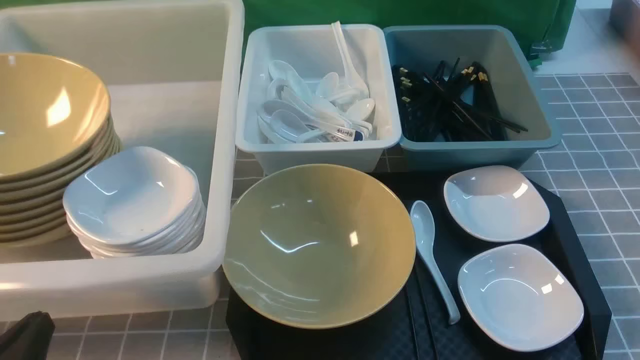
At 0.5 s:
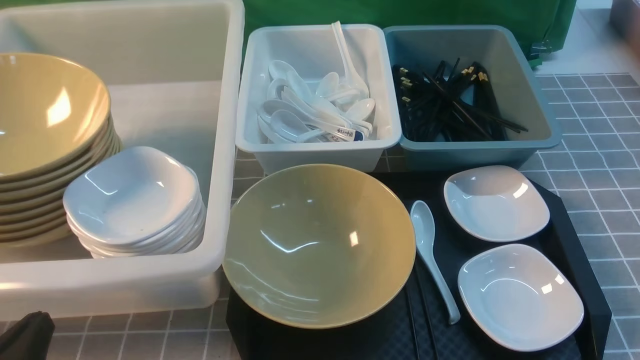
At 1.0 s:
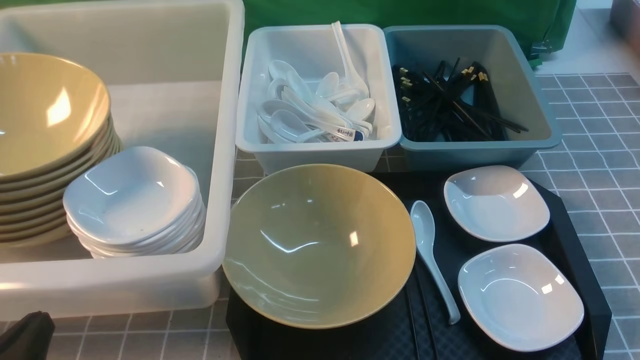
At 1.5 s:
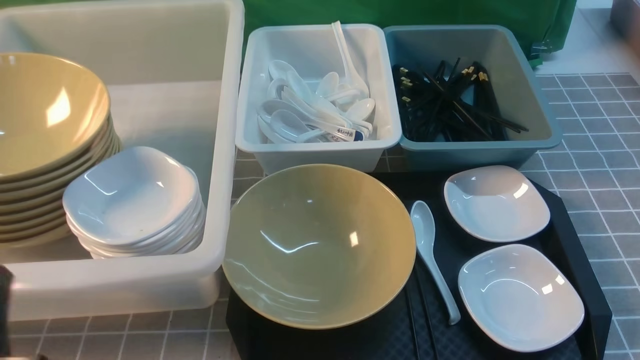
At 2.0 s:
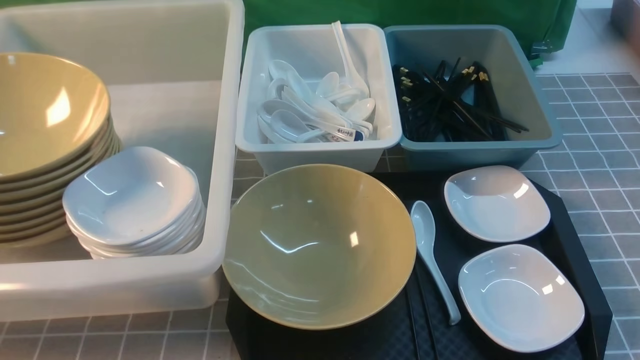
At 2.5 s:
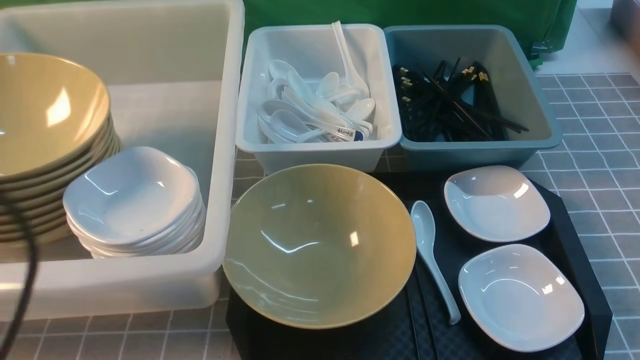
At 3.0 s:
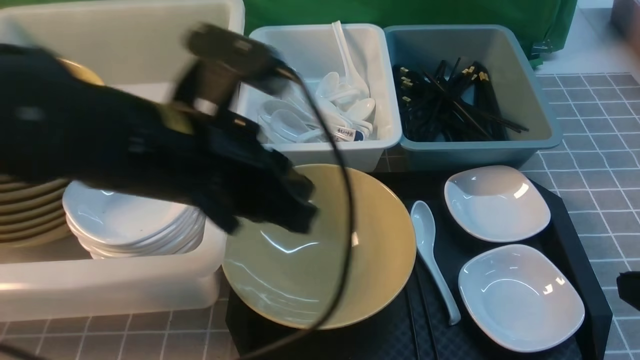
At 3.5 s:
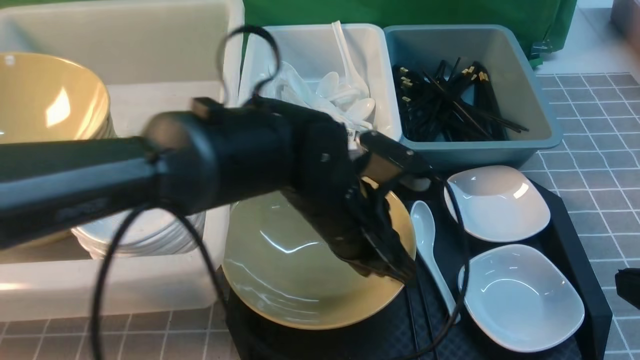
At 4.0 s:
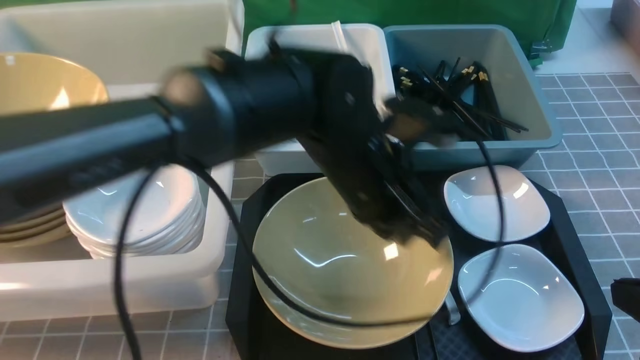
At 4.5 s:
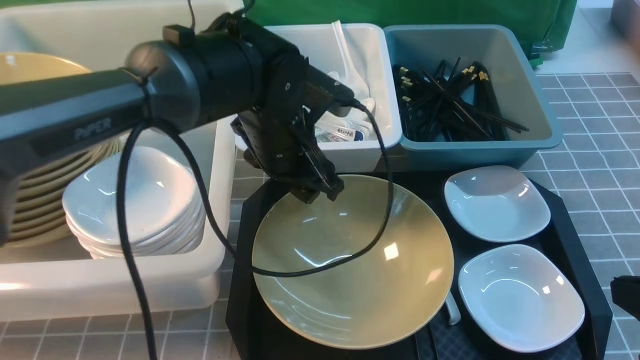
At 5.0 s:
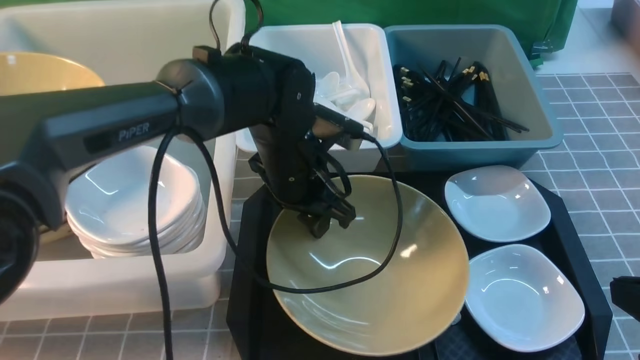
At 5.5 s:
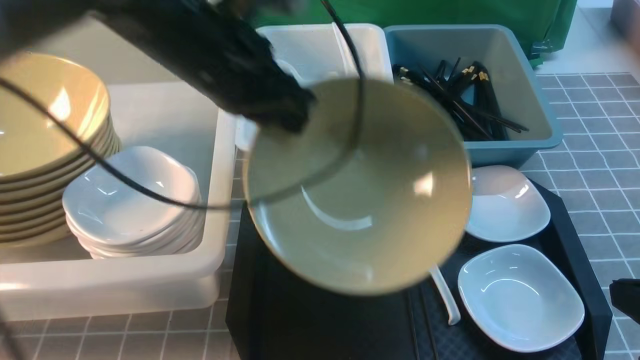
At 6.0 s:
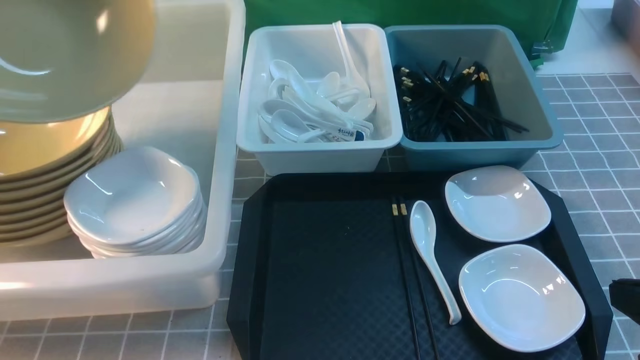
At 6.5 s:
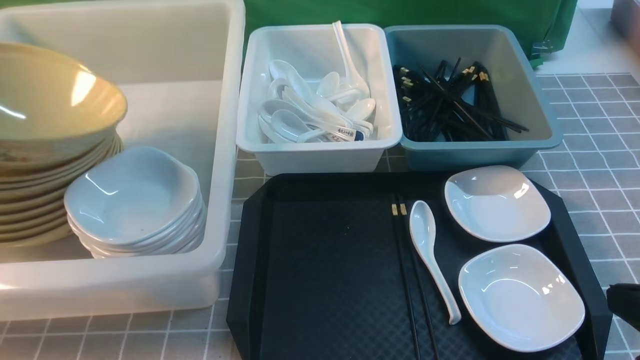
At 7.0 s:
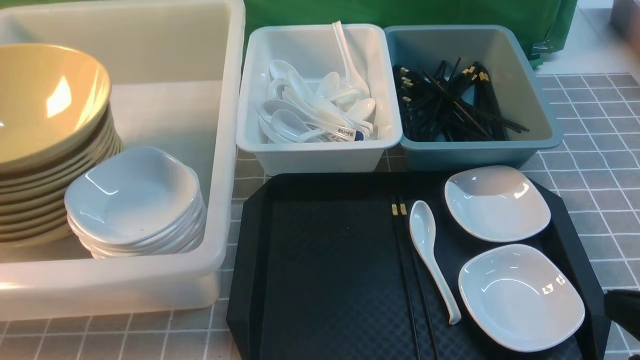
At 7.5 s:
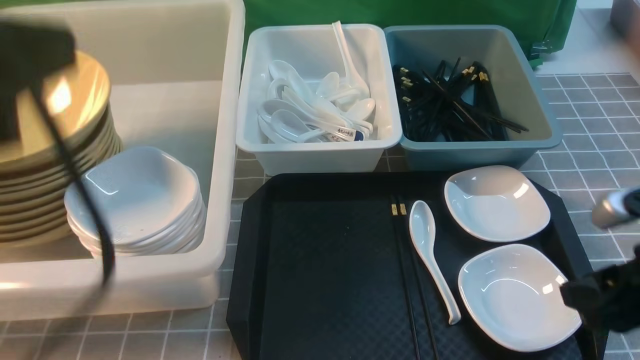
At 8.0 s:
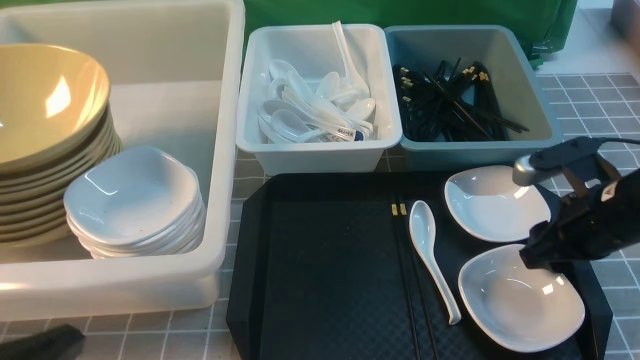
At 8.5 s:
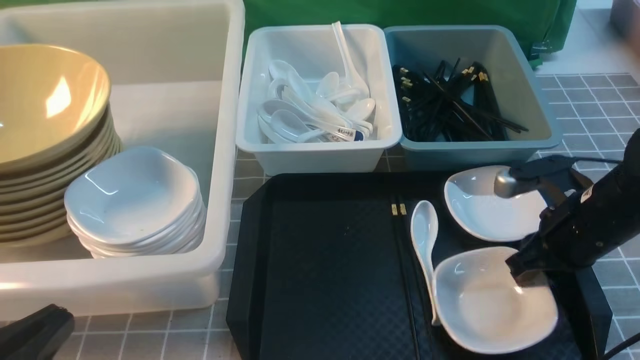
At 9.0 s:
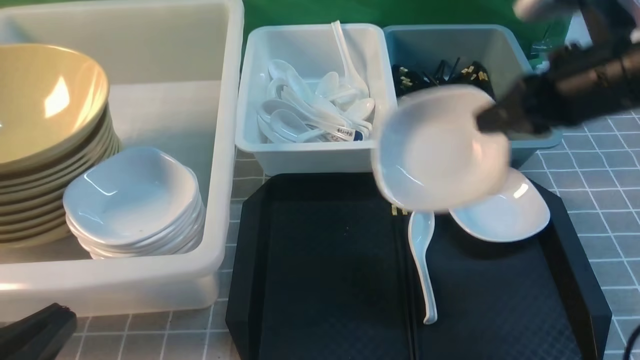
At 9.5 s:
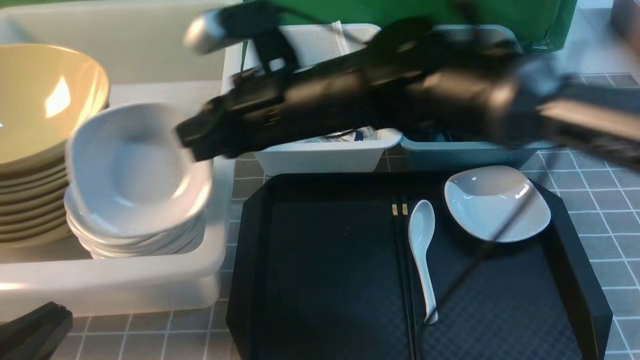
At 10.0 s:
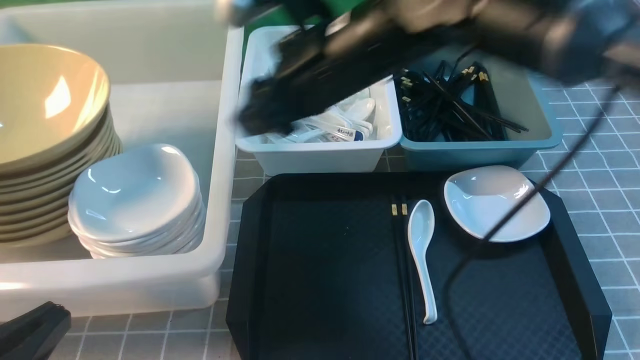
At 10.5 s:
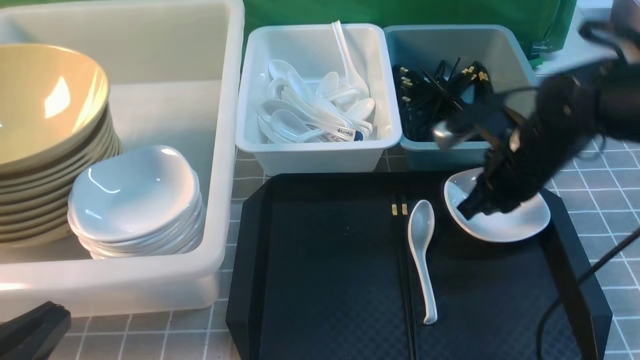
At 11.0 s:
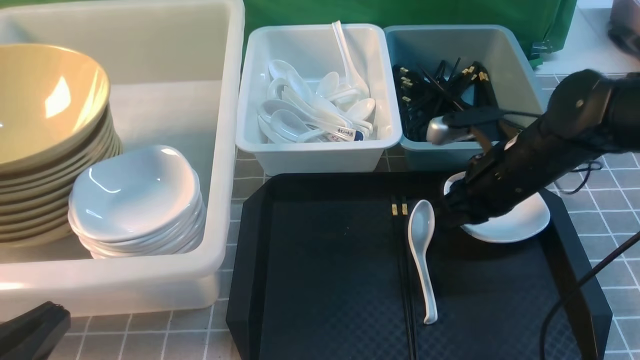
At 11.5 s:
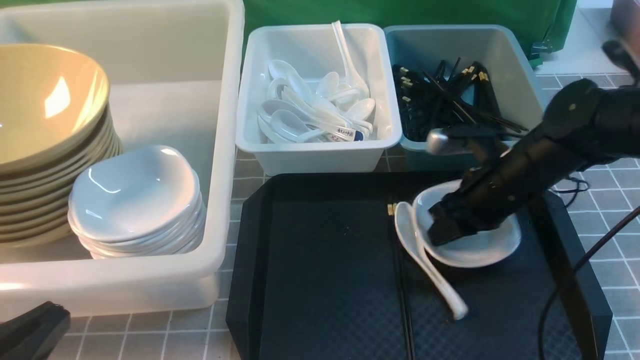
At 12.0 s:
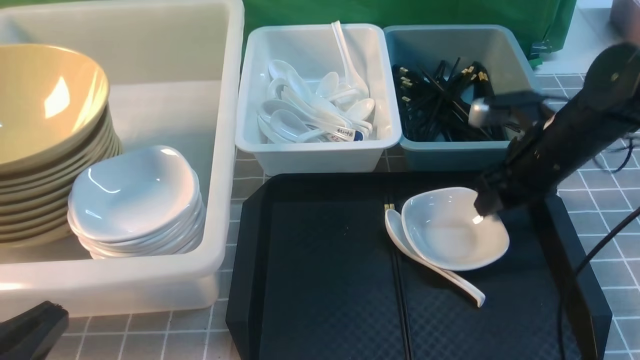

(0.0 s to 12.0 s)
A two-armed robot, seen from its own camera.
Task of the whole recording: on grey table put chopsticks spoon bowls plates into blue grey white boxes.
Step, 0.0 s - 5.0 s: use the left arm to grab the yellow noodle bowl on the left.
Step, 5.5 s - 6.5 s: use the left arm to put the noodle bowl into the large storage box on the left.
Step, 7.0 s - 8.5 s: use the right arm to grab the plate.
Step, 9.0 s - 9.5 s: use the right arm to put the plate into the large storage box on the left.
2.0 s - 4.0 s: The right gripper heads forward, covering approximately 5 cm, and closes, while the left gripper moves to the right and forward, approximately 35 cm.
4.0 s - 6.0 s: The left gripper moves to the left and upward, roughly 40 cm, and opens, then closes again.
6.0 s - 8.0 s: The left gripper goes about 30 cm backward, downward and to the right, and opens, then closes once more. The right gripper moves forward, some 15 cm, and opens up.
8.0 s - 10.0 s: The right gripper is displaced to the left and upward by roughly 30 cm, and closes, then opens again.
10.0 s - 12.0 s: The right gripper shifts some 25 cm to the right and downward, and closes and opens again.

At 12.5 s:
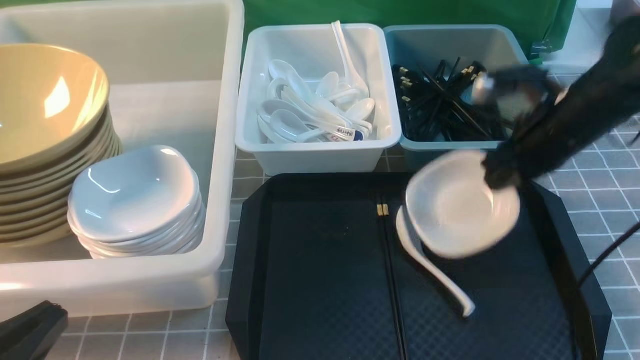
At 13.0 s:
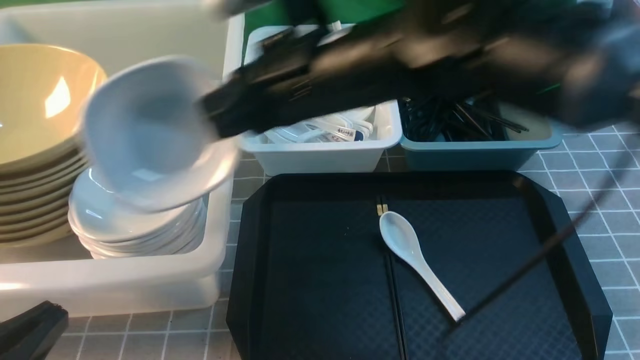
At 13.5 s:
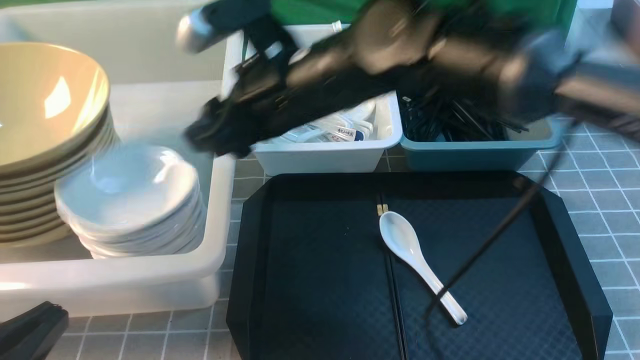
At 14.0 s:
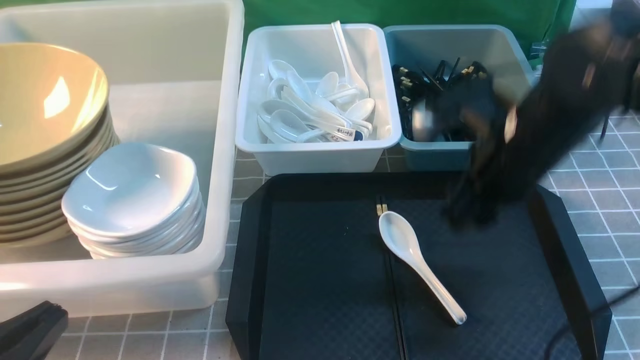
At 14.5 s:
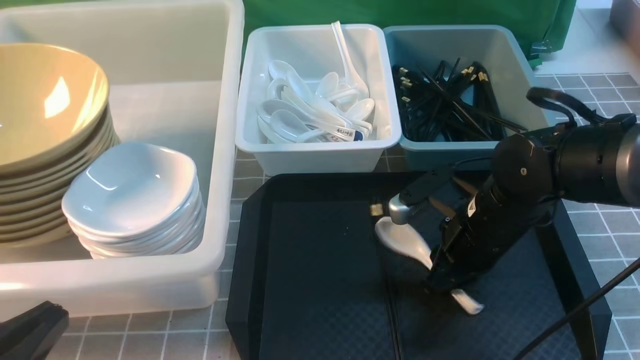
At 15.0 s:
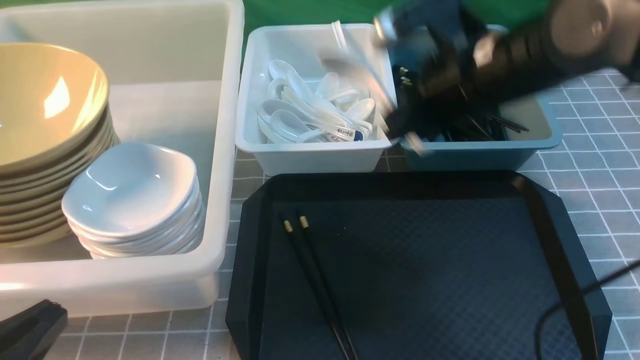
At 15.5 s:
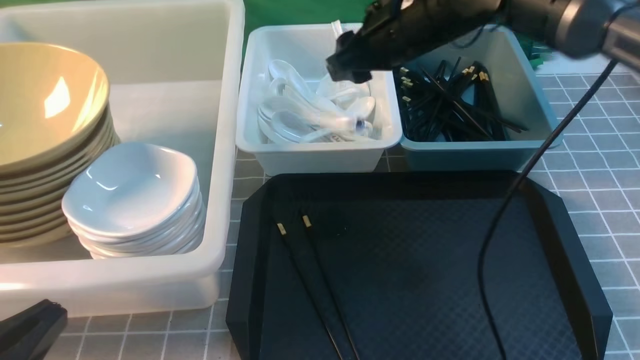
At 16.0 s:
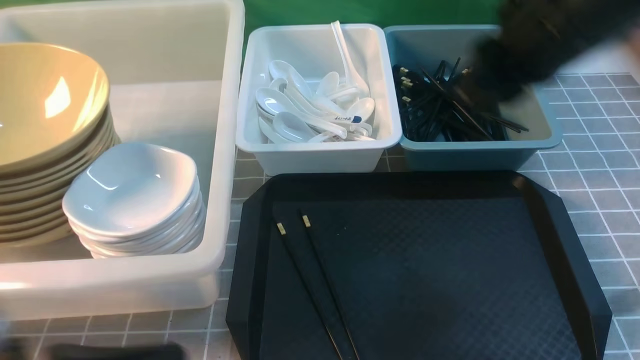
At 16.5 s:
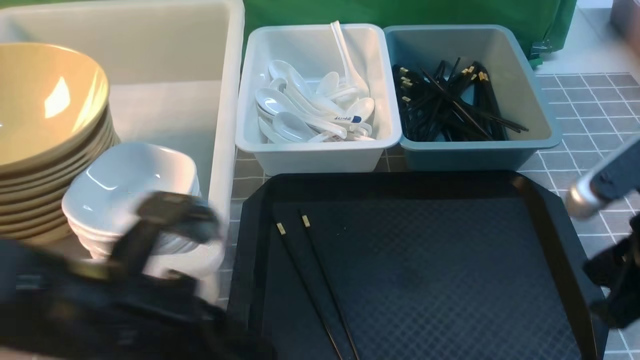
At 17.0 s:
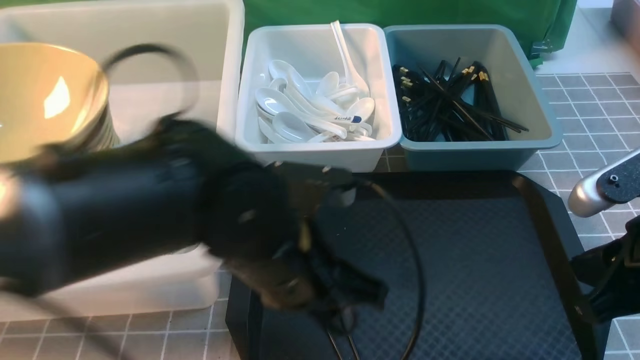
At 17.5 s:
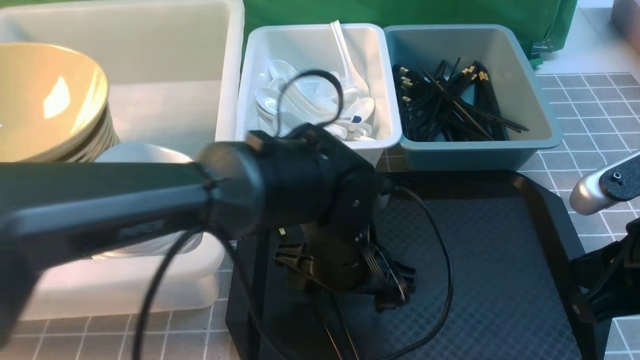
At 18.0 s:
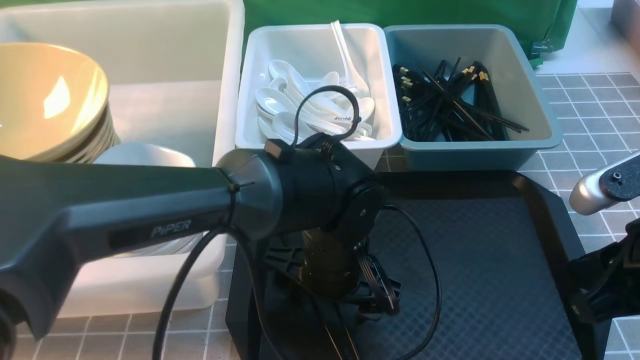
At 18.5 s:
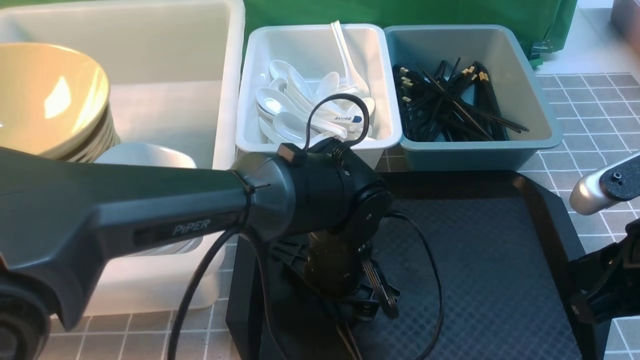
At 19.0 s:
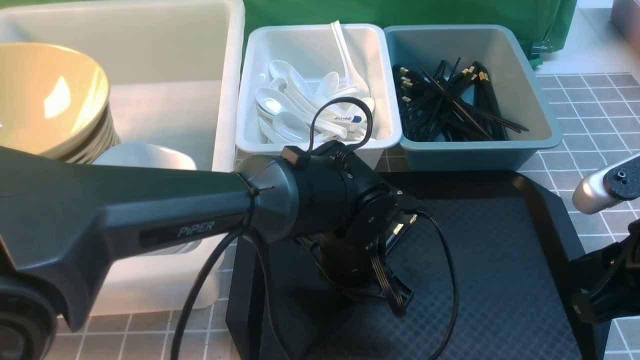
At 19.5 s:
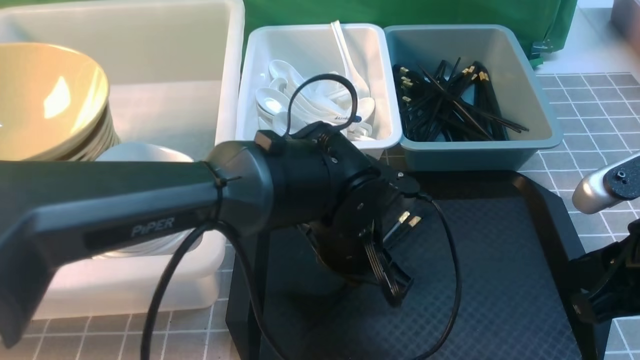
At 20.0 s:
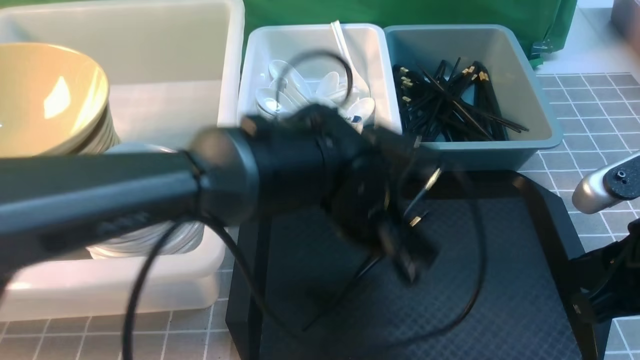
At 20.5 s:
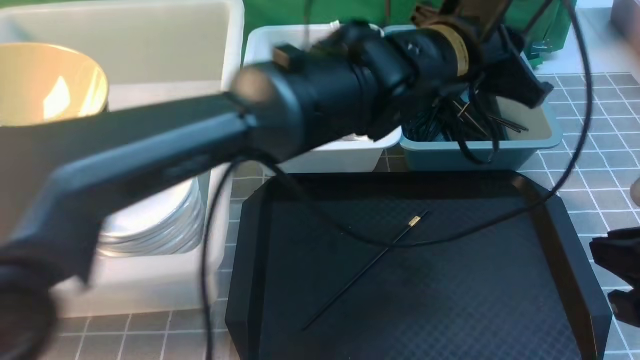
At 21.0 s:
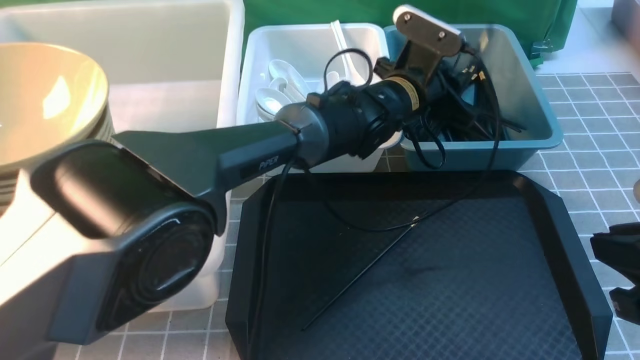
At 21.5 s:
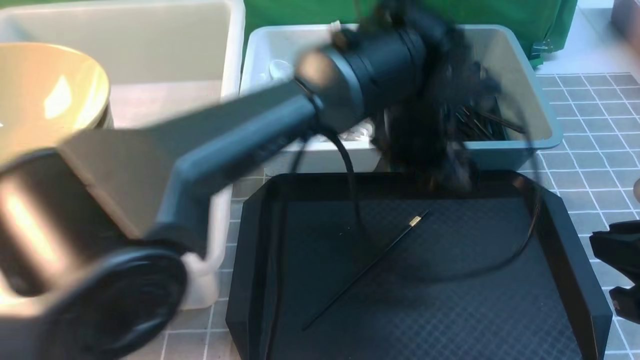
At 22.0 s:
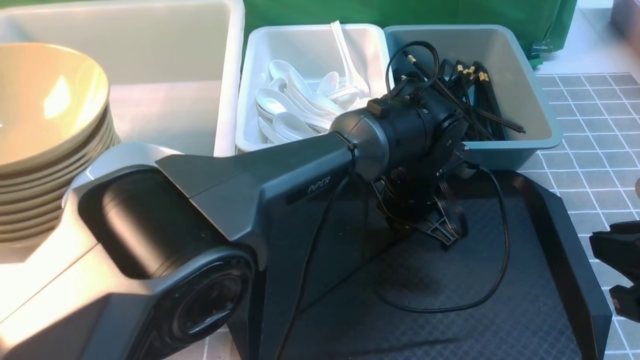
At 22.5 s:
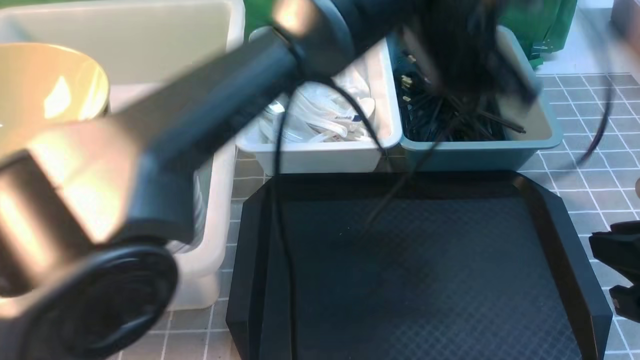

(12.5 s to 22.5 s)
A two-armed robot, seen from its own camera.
Task of the whole recording: on grey table put chopsticks spoon bowls plates into blue grey white boxes.
Step, 14.0 s - 14.5 s: use the right arm to grab the soup spoon in the middle.
Step, 15.0 s - 15.5 s: use the right arm to put the soup spoon into the small storage box in the middle.
Step, 16.0 s - 20.0 s: use the left arm to grab the chopsticks.
Step, 20.5 s - 21.0 s: use the left arm to put the chopsticks into the small storage box on the right.
Step, 21.5 s - 22.0 s: use the left arm to grab the chopsticks.
12.5 s - 14.5 s: The right gripper is displaced backward and downward by about 10 cm, moves some 25 cm to the left and comes back, and opens and closes again.
14.5 s - 16.5 s: The left gripper goes approximately 15 cm forward and to the right. The right gripper is displaced upward, backward and to the right by approximately 20 cm, and closes its fingers.
16.5 s - 18.5 s: The left gripper is displaced to the right, forward and downward by approximately 25 cm, and opens its fingers.
18.5 s - 20.5 s: The left gripper moves upward, forward and to the right, approximately 20 cm, and closes.
20.5 s - 22.5 s: The left gripper goes downward and returns, roughly 15 cm each way, and opens, then closes again.
